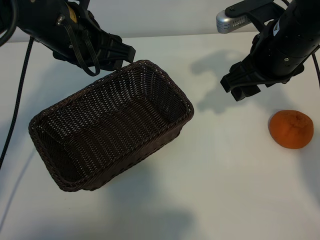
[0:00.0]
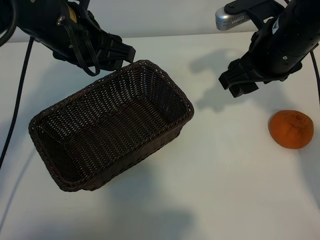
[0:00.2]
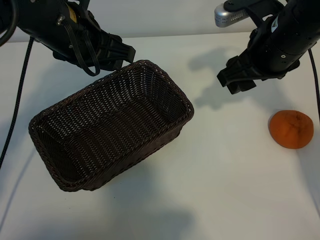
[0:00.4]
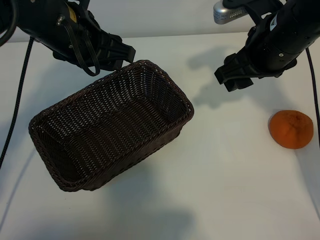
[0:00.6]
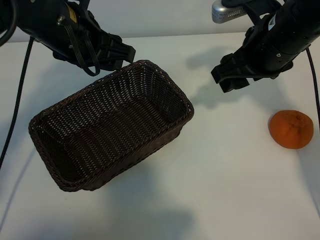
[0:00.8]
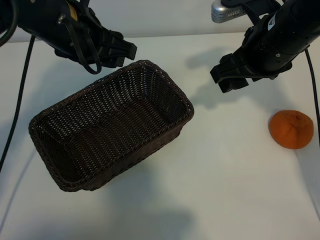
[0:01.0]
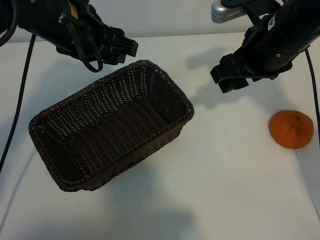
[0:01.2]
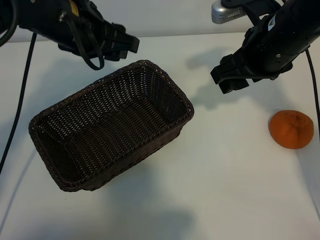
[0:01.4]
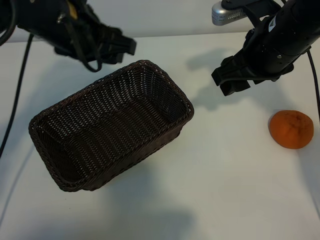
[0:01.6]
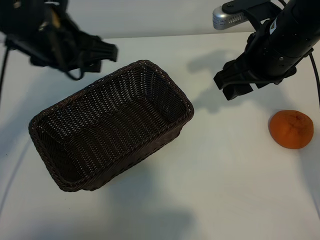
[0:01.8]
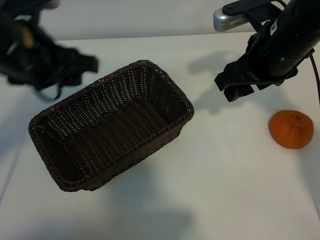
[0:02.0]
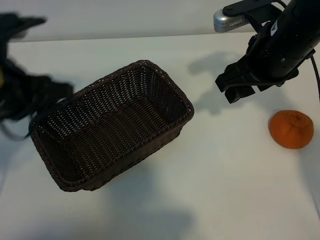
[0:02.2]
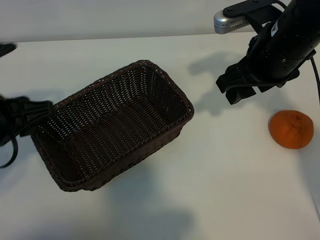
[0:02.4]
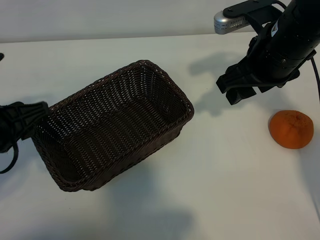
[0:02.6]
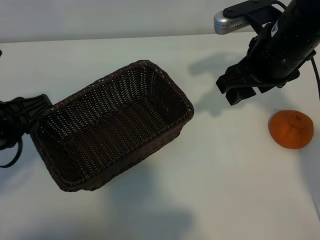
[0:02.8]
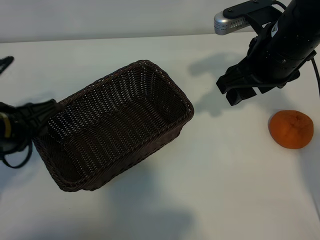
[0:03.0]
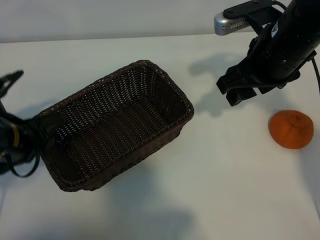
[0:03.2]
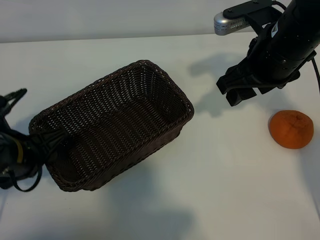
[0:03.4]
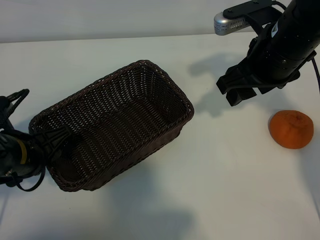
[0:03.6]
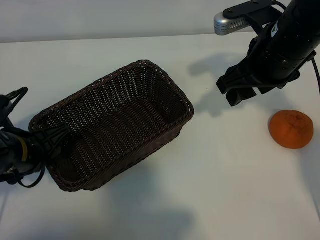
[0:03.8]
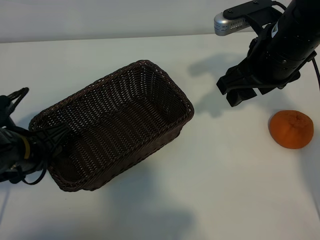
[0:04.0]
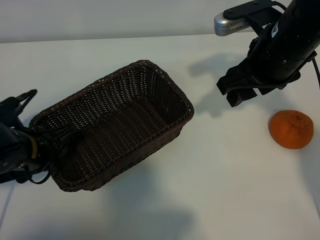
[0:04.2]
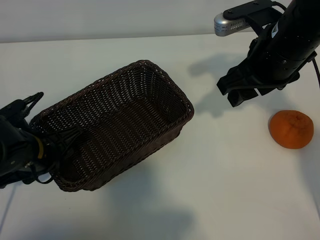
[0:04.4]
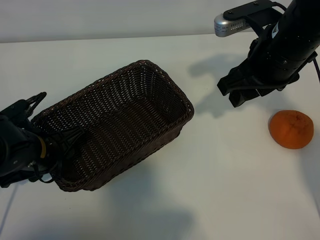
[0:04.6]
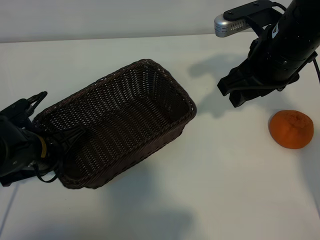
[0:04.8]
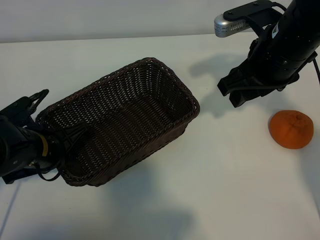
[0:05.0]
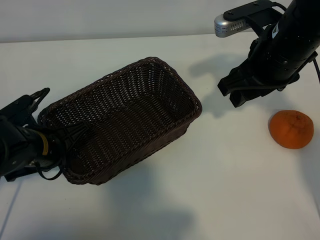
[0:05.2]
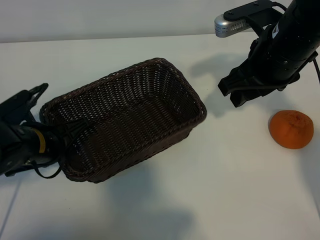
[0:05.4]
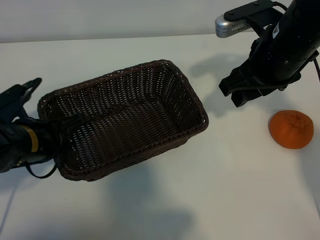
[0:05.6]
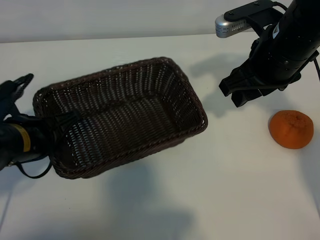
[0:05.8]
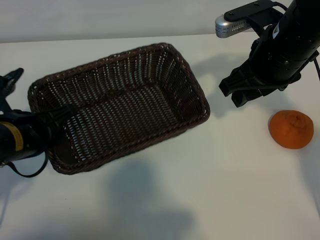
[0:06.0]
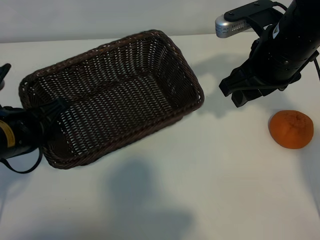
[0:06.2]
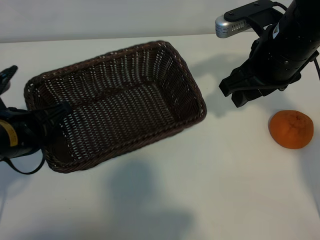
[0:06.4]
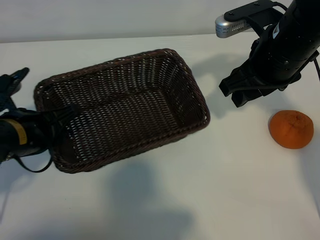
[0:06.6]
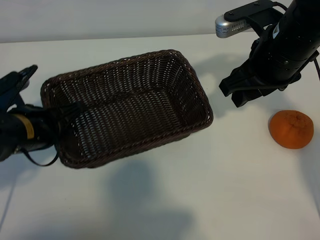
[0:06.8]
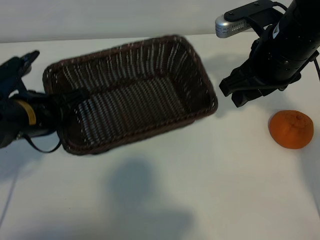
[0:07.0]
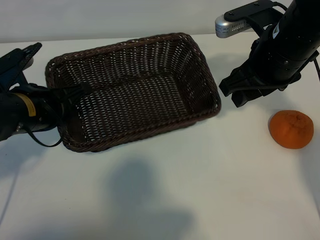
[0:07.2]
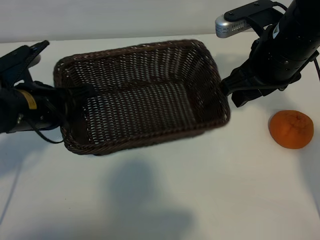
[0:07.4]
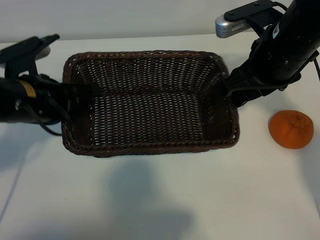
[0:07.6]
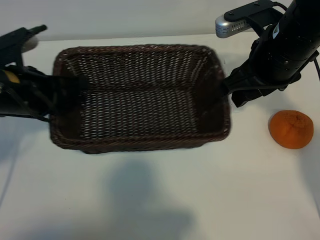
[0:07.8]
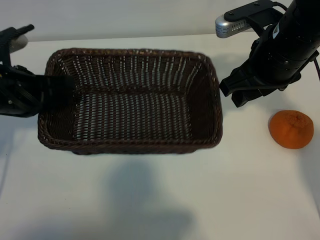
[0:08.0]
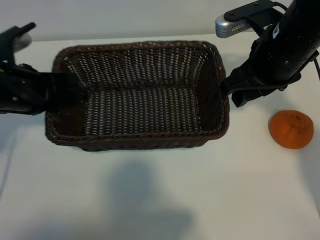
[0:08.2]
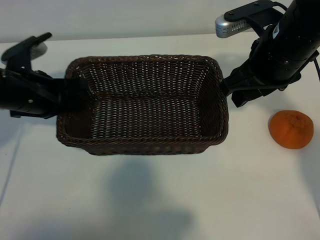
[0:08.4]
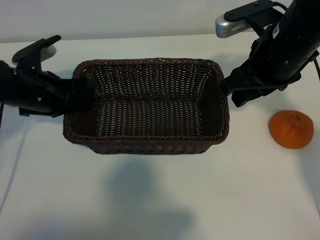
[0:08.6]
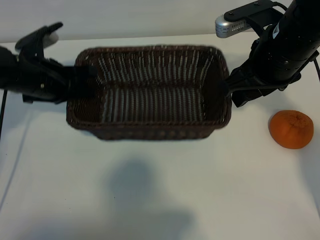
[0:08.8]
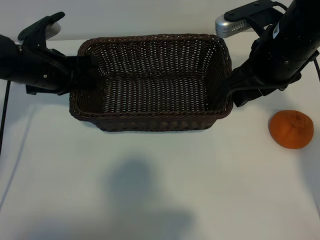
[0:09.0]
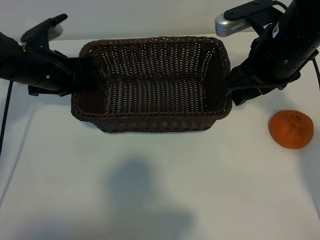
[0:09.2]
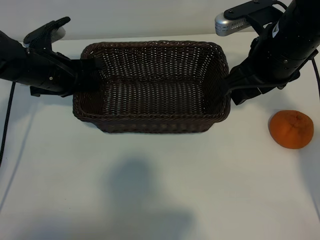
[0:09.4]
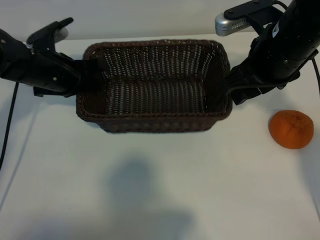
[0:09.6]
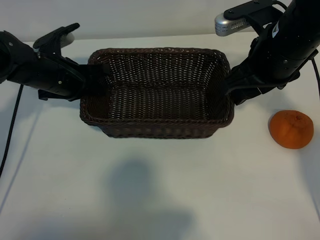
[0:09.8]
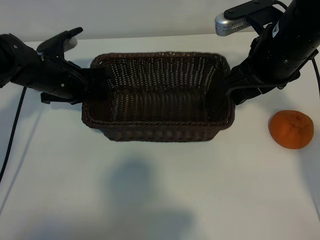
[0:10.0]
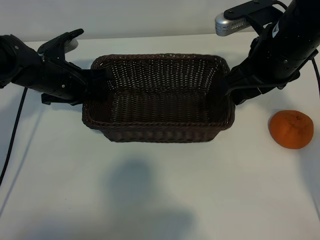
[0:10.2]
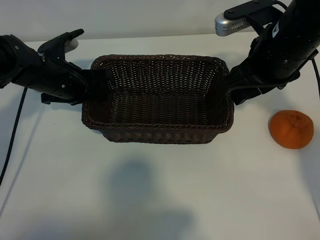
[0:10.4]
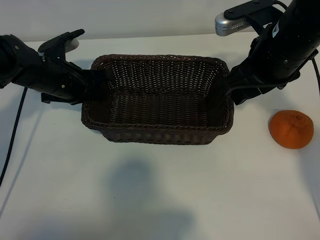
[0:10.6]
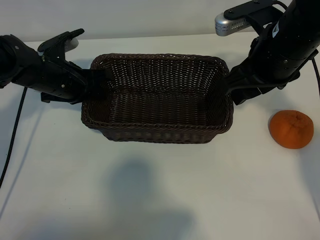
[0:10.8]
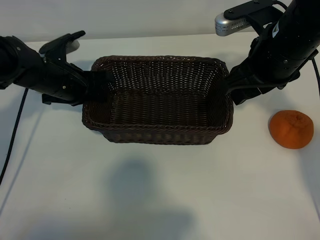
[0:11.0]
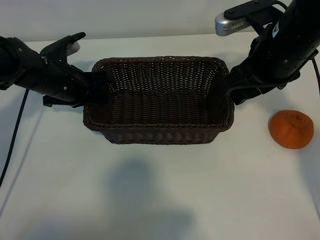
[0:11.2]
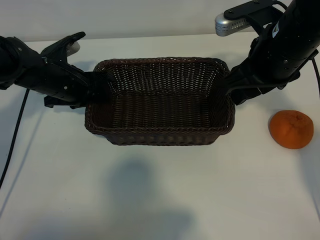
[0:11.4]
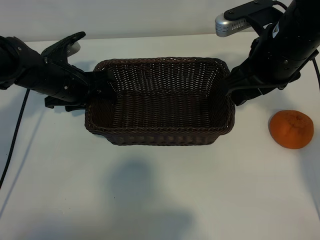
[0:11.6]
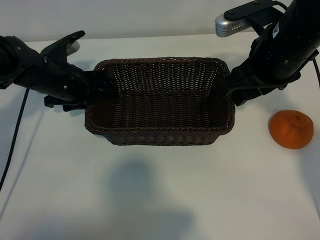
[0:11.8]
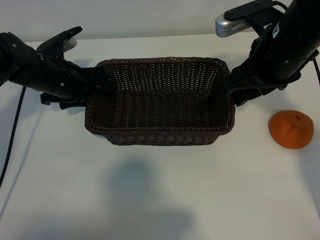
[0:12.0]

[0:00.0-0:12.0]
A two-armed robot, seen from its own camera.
Task of the whole recording: pick up the orange and put it into the basket.
Step, 0:00.0 to 0:04.6: Grasp the basket with left gripper.
Step, 0:04.8 to 0:11.2: Place the basket in the center of view with left gripper.

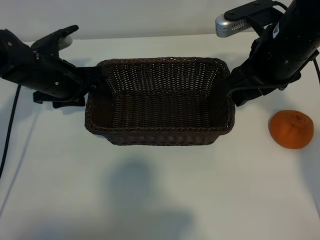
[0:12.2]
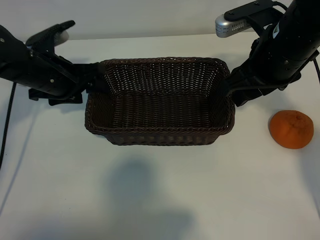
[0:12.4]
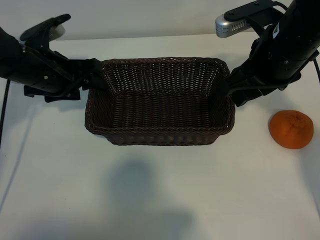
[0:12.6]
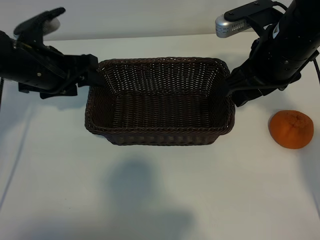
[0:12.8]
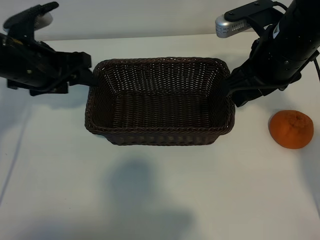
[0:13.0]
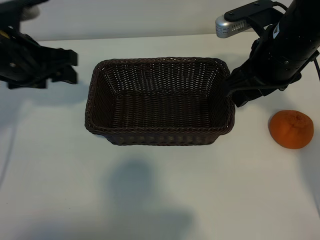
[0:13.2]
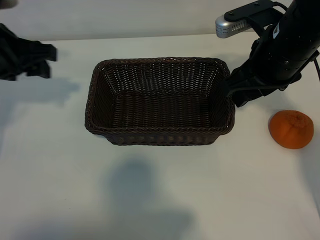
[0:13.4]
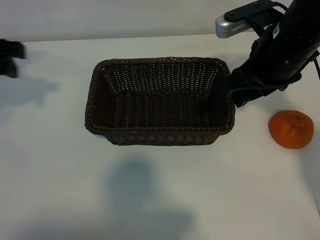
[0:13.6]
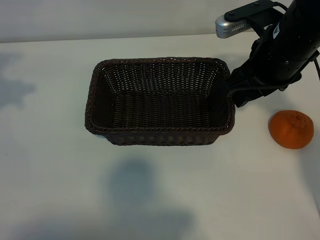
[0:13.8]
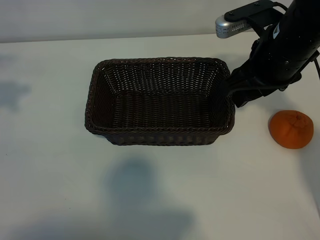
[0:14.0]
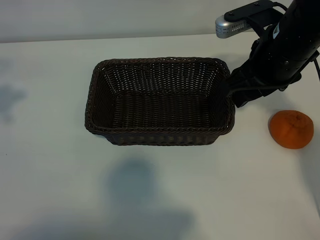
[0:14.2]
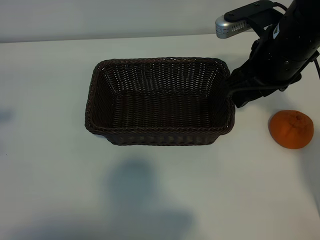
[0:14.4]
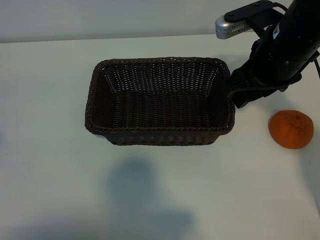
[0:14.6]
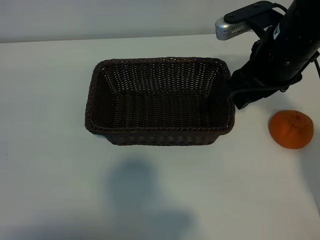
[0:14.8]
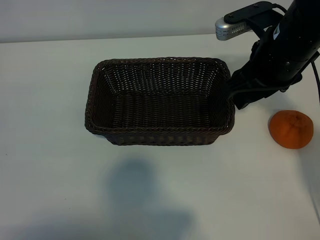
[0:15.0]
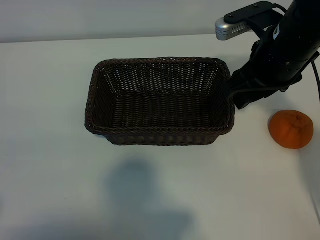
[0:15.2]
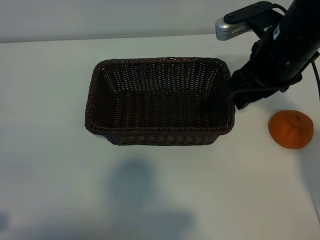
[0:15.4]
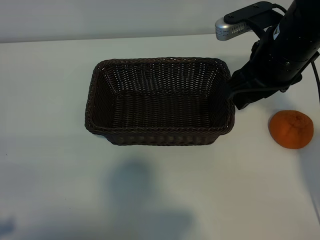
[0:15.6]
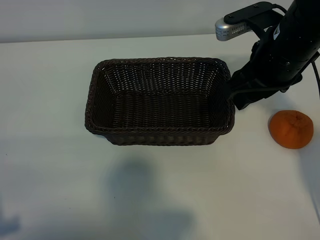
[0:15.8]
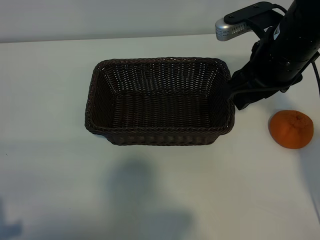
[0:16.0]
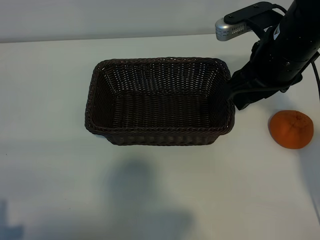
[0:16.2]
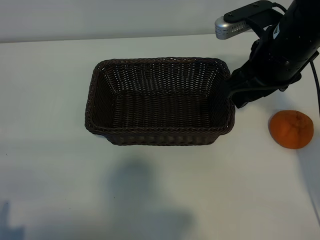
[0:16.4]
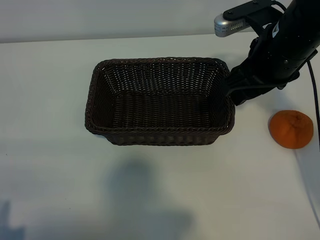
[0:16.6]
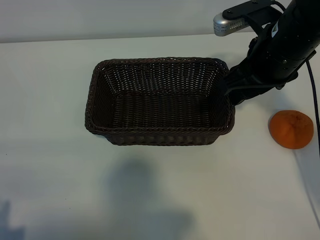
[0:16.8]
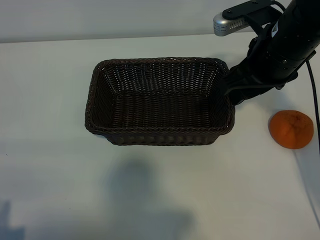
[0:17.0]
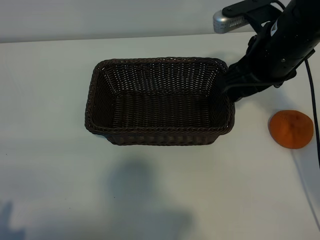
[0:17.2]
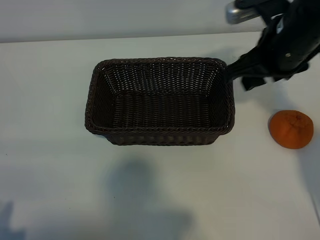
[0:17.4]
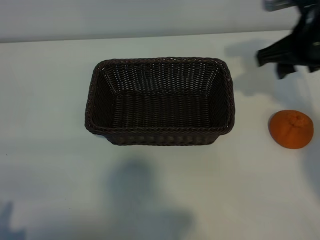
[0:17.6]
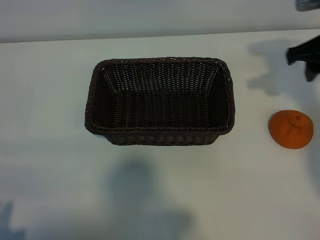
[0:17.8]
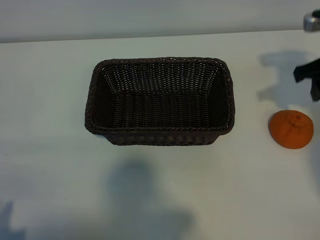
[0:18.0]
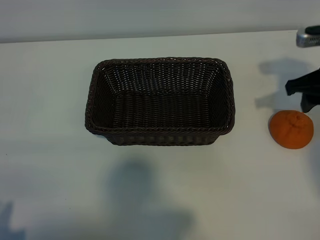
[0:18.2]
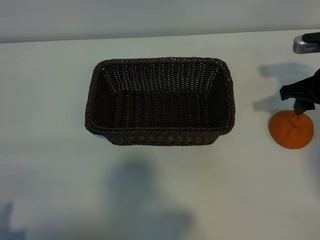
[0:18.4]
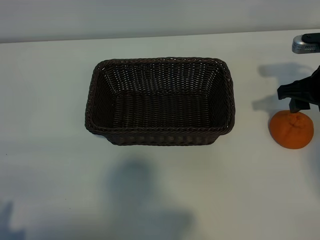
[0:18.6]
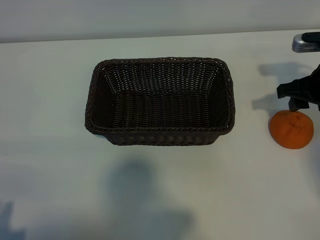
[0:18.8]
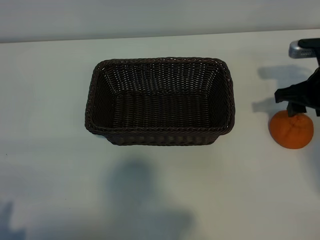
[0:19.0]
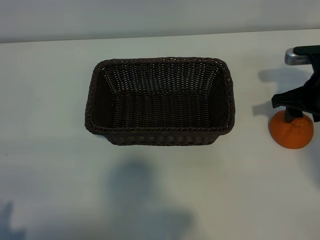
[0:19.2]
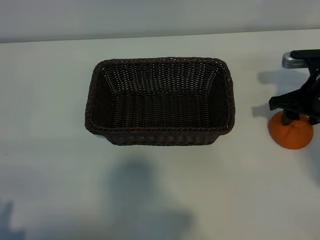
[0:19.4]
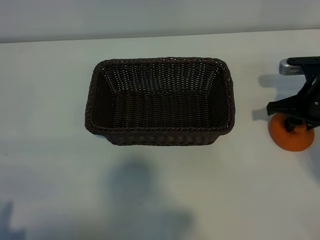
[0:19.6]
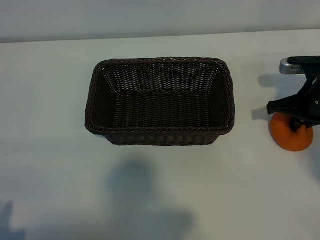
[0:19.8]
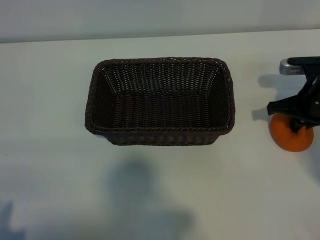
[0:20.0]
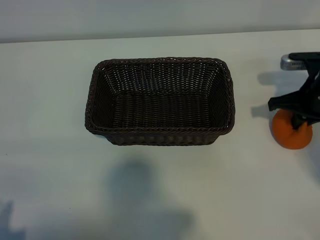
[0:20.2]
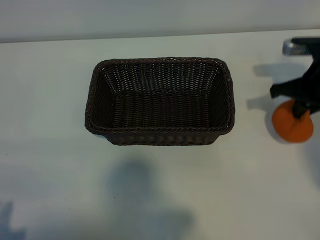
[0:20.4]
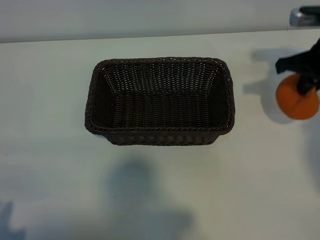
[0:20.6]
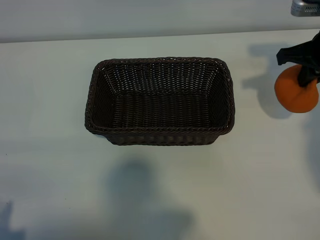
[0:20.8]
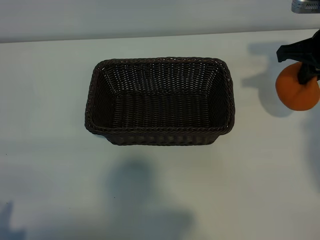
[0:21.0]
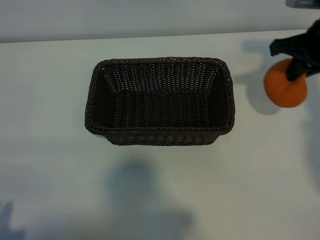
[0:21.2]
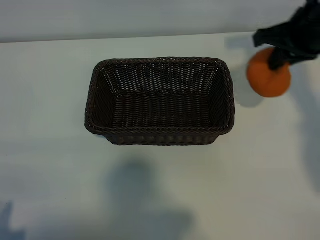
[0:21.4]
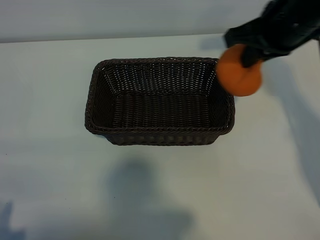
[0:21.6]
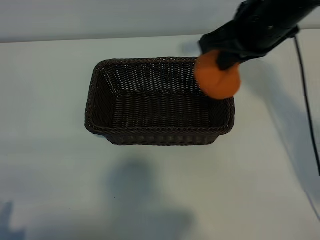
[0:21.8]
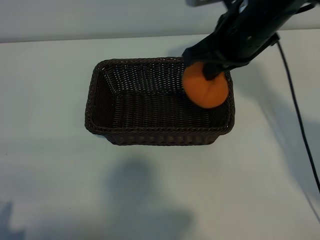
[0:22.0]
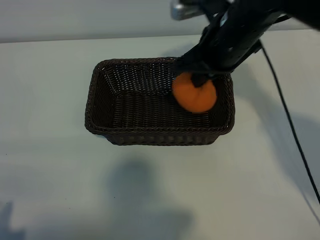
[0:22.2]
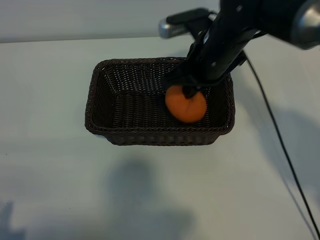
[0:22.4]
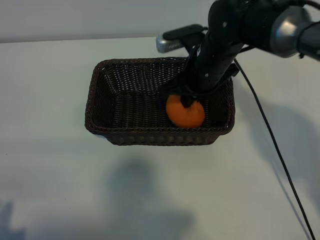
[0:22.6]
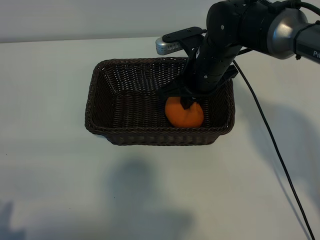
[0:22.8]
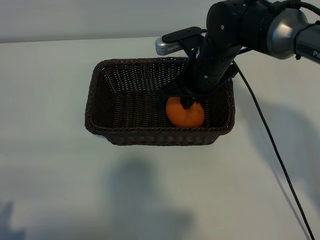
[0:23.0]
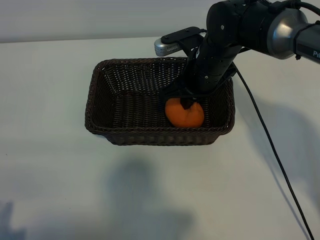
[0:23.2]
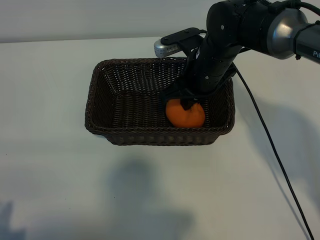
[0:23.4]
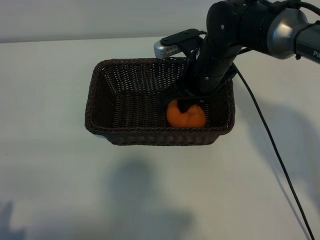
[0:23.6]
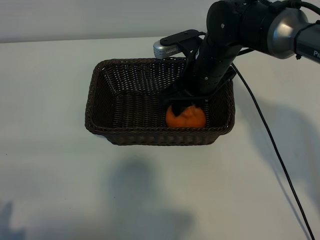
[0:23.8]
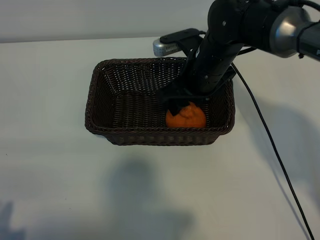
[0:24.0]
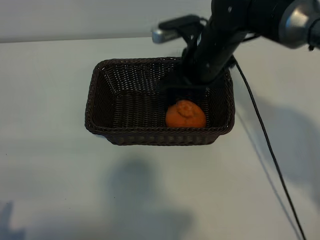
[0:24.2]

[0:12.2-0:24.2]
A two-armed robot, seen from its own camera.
Task of the whole recording: pick up the orange and put it into the basket.
Step, 0:12.2 to 0:19.6: Grasp the orange with right gripper.
Step, 0:19.8 to 0:23.6: Place the orange in the basket with right gripper.
